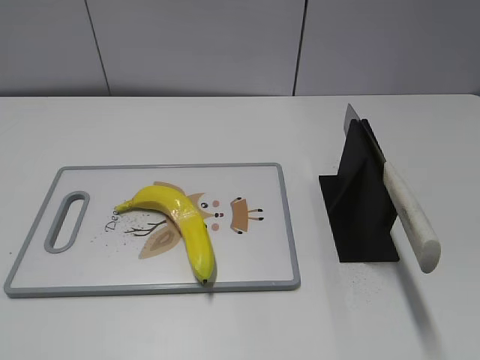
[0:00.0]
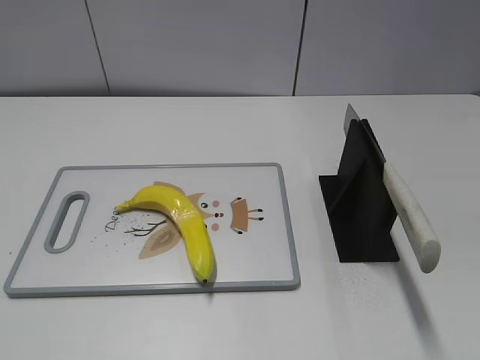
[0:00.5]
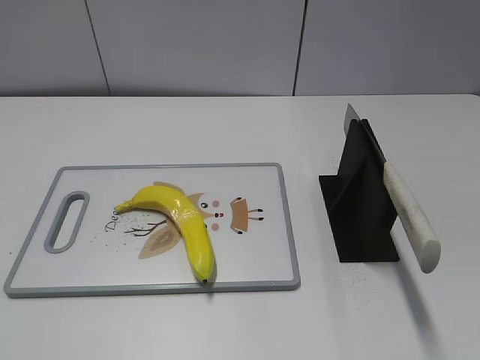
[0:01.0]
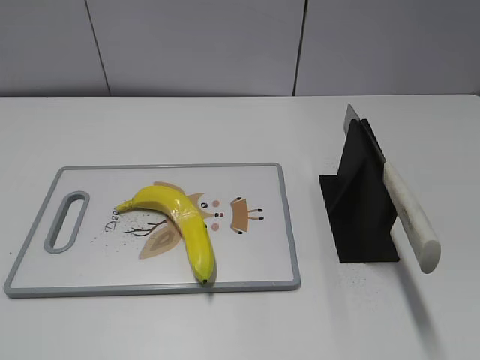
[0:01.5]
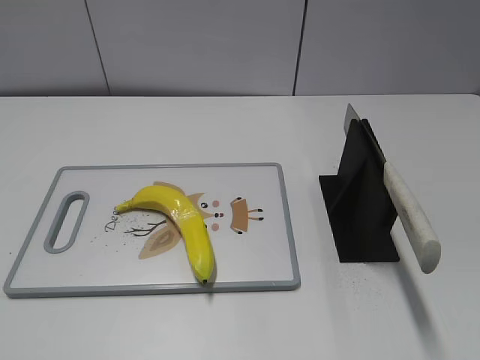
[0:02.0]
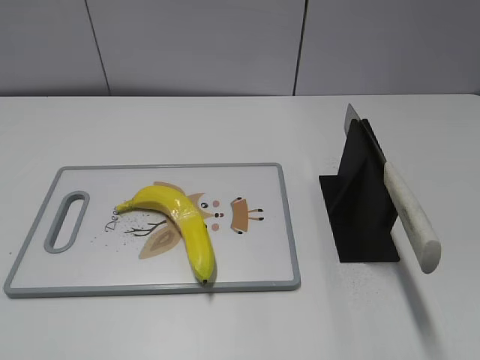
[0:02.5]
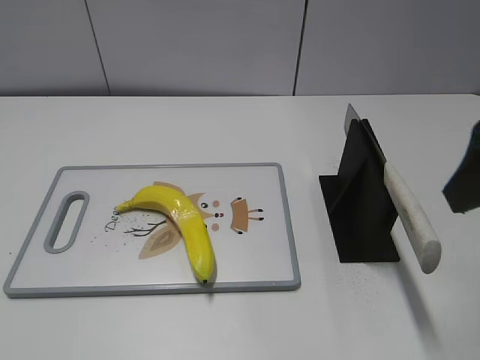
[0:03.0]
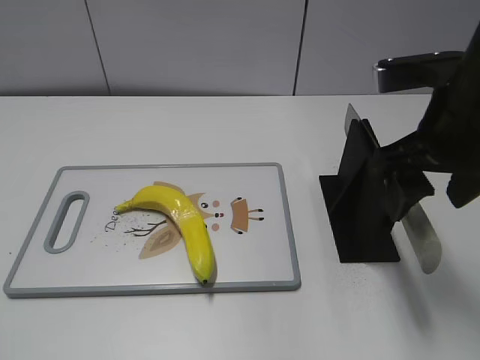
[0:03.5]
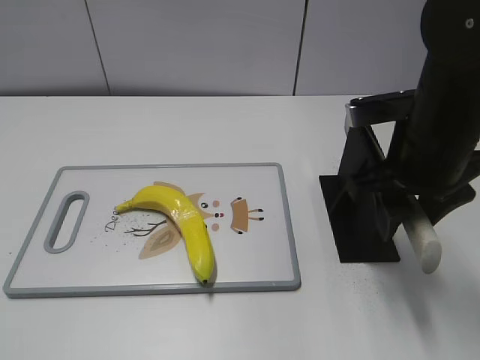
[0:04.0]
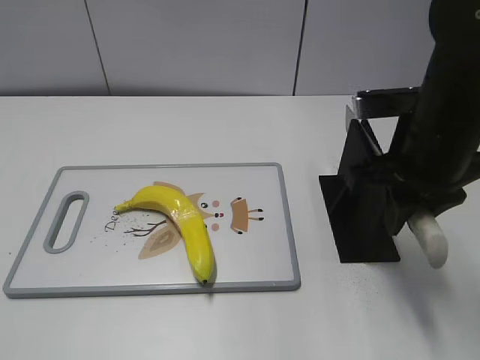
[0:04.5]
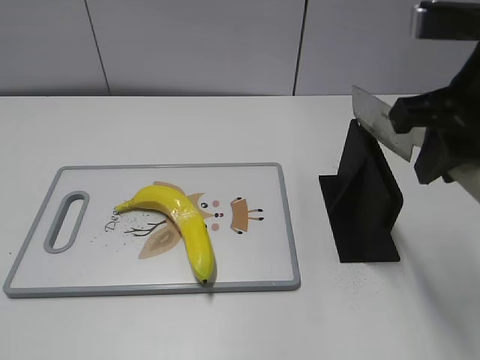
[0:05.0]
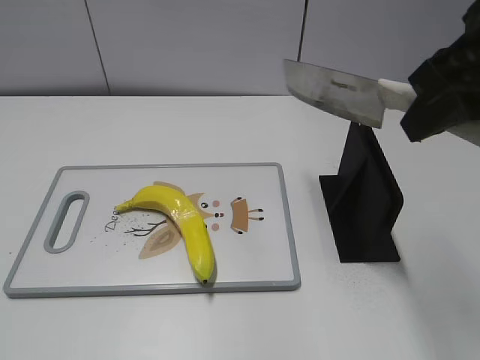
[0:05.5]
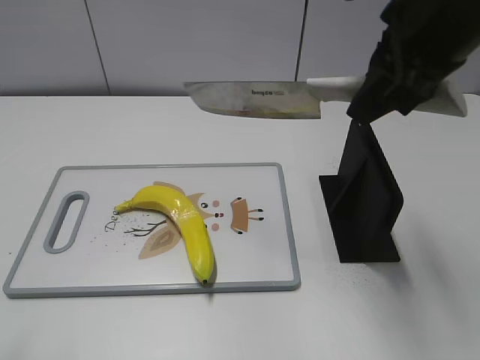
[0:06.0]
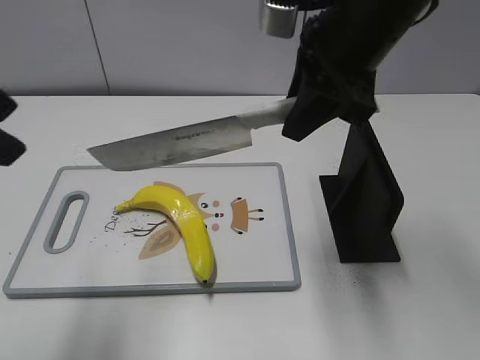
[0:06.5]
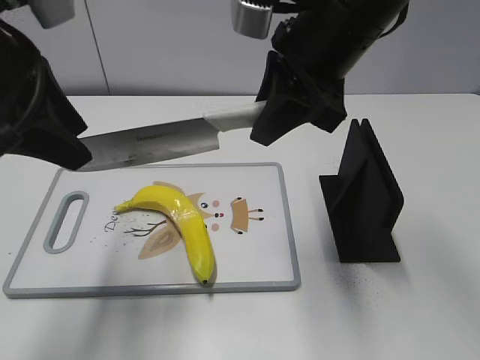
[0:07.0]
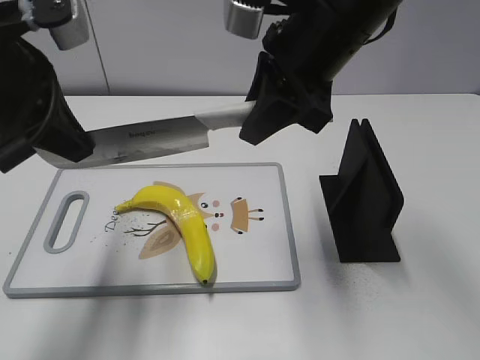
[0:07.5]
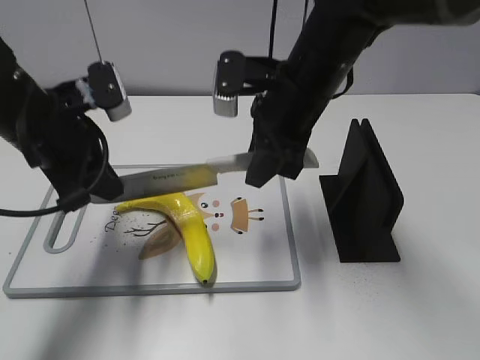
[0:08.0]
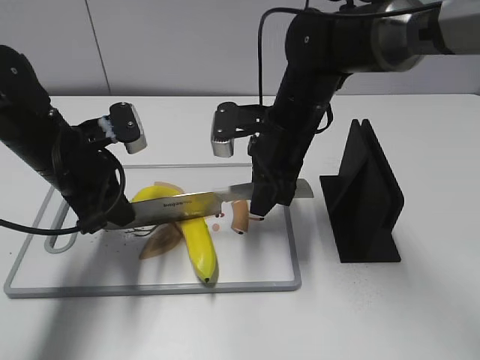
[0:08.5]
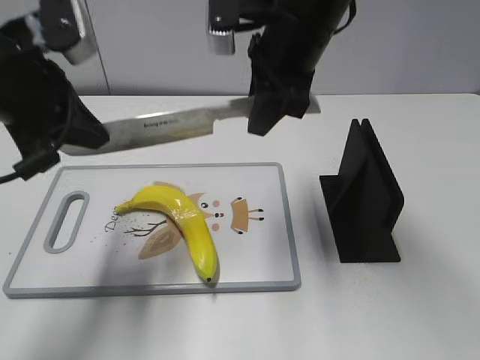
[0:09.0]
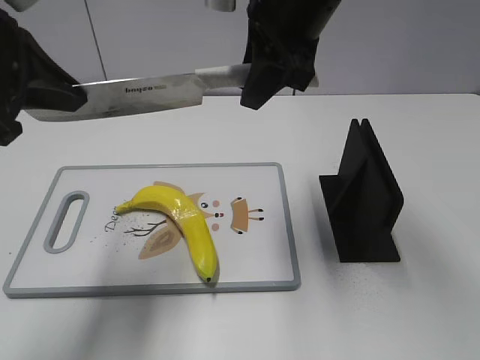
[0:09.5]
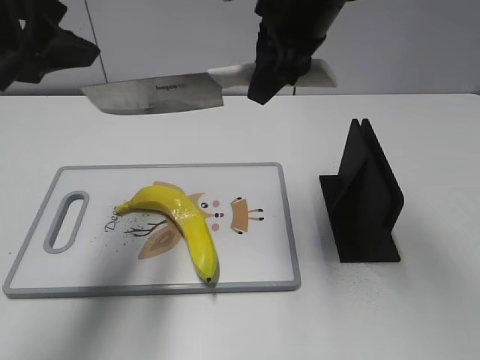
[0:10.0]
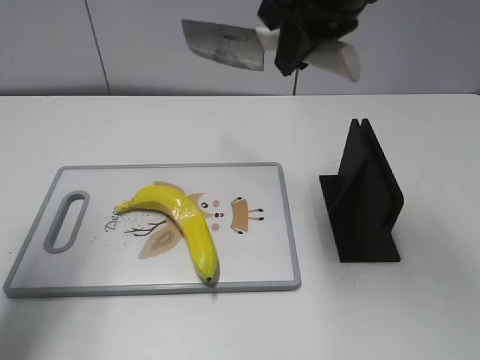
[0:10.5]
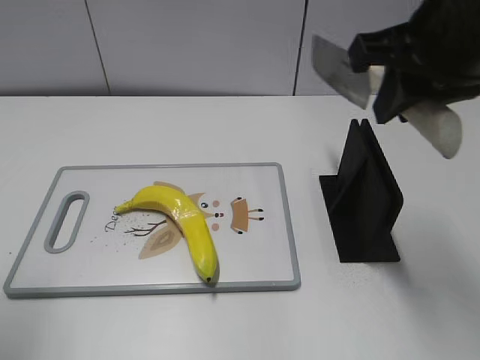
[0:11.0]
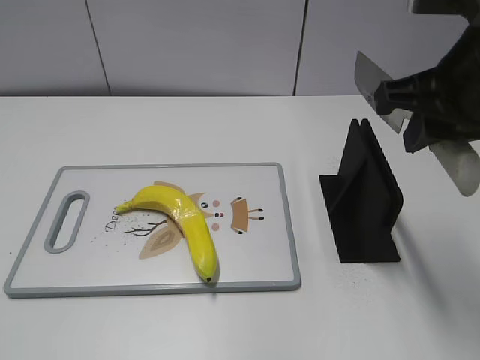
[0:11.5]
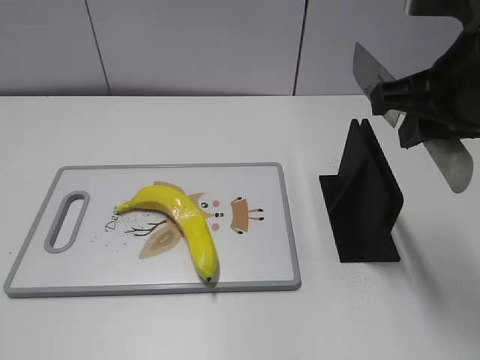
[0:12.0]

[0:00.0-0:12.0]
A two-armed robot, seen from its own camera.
Task of the whole recording: cut plastic banana.
Step, 0:00.0 to 0:05.0: Grab the knife handle with your right hand.
Step, 0:05.5 to 0:09.5: Lift the knife with your right hand.
Step, 0:10.5 to 0:11.5: Lift the knife with your right hand.
0:02.0 to 0:04.0: The right gripper shifts about 30 cm forward and to the left, and closes.
0:04.0 to 0:06.0: The right gripper is displaced upward by about 10 cm, and closes its fingers; the left gripper heads forward, covering approximately 10 cm.
0:06.0 to 0:08.0: The right gripper goes about 15 cm downward, to the left and forward; the left gripper heads forward, downward and to the right, covering about 30 cm, and closes its fingers.
0:08.0 to 0:10.0: The two grippers go some 10 cm upward. The left gripper opens.
0:10.0 to 0:12.0: The left gripper moves backward, about 25 cm. Meanwhile the right gripper travels backward and to the right by approximately 15 cm.

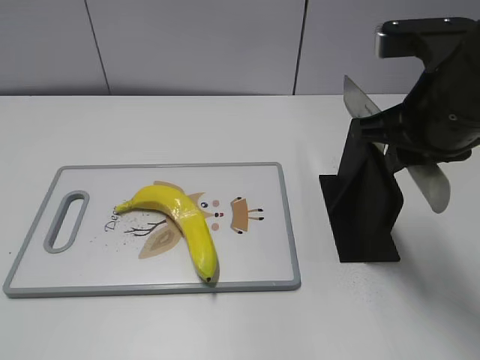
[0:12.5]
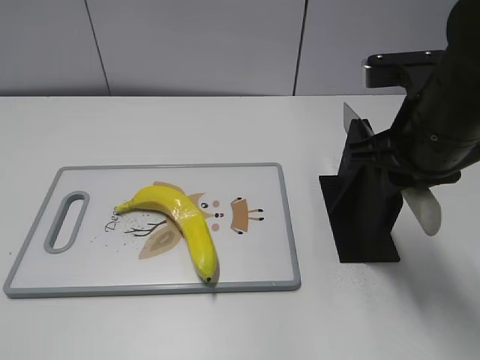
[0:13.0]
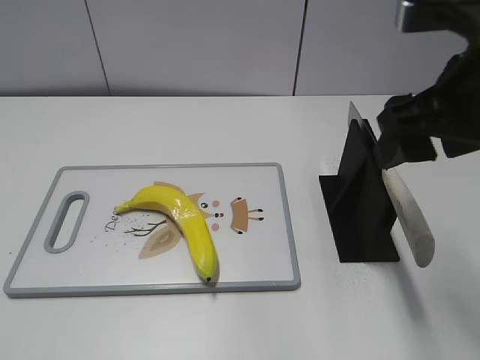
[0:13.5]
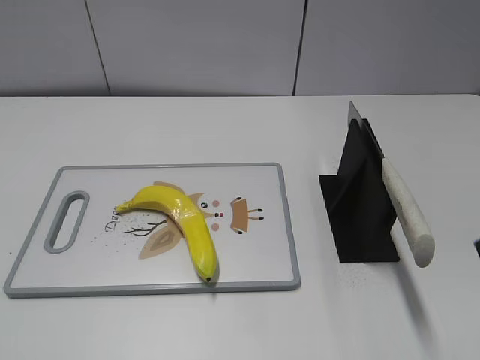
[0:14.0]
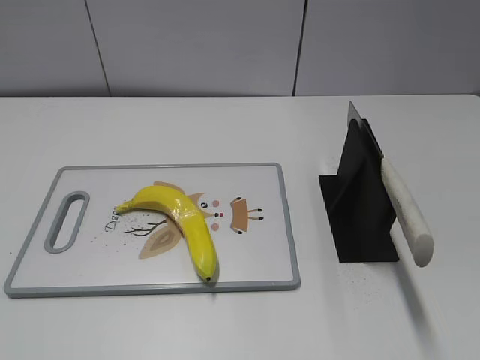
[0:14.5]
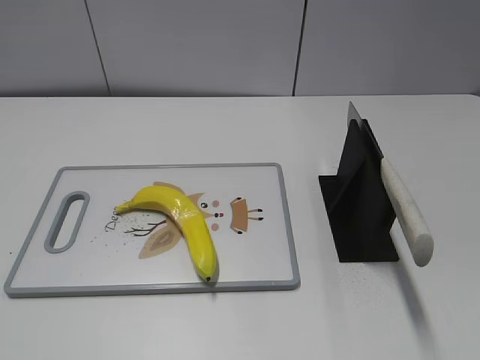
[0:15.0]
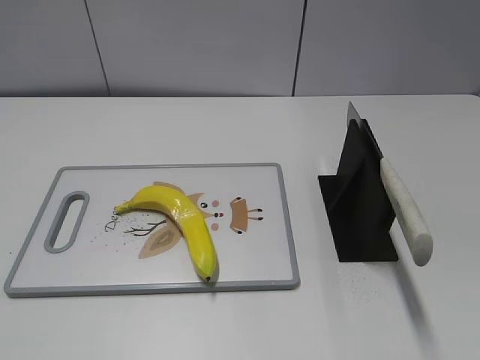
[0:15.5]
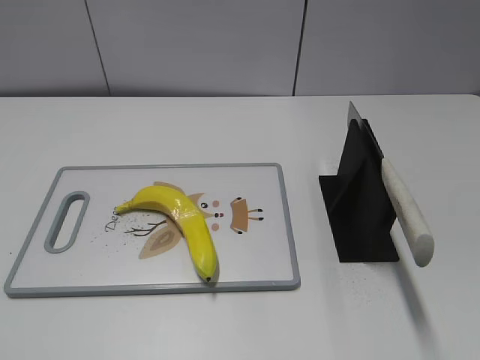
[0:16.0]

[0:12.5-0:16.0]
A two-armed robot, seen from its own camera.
Task of the whole recording: cut plastic banana.
Step, 0:12.5 to 0:16.0: Place the knife on the storage rack with your right hand.
0:12.5 to 0:14.5: The right gripper shifts roughly 25 cm backward and to the right, and opens its fingers.
